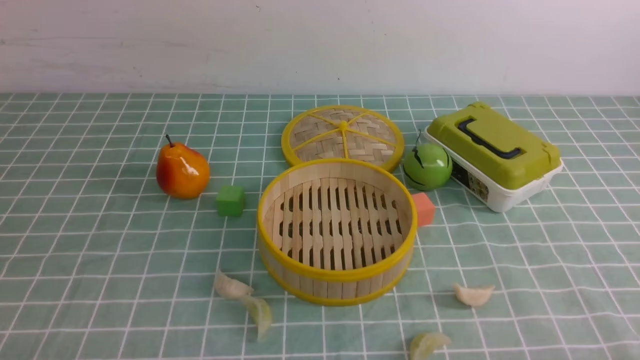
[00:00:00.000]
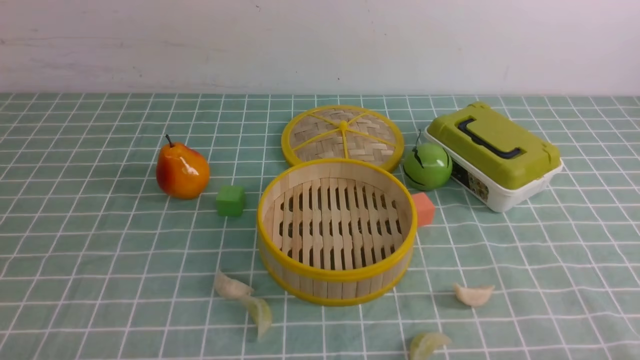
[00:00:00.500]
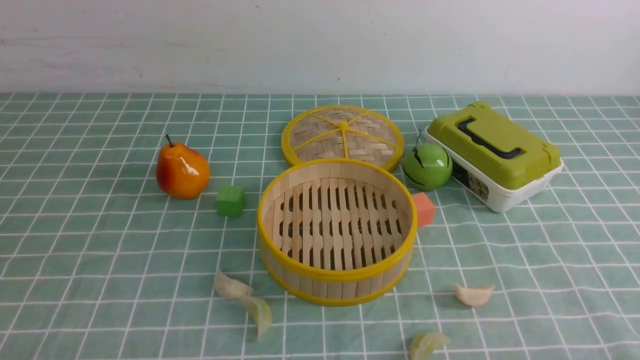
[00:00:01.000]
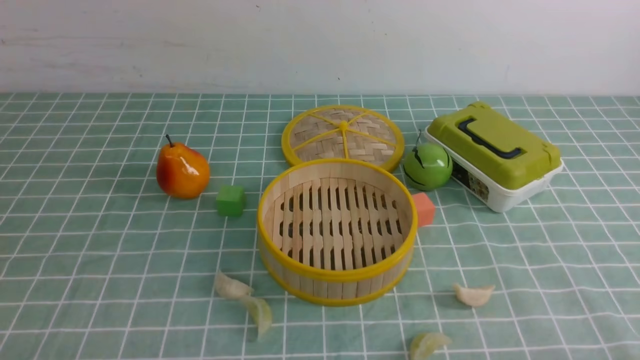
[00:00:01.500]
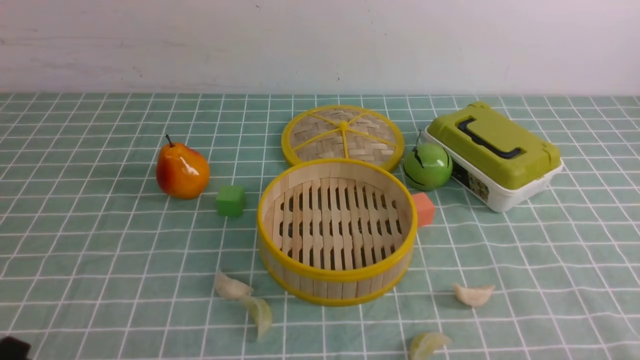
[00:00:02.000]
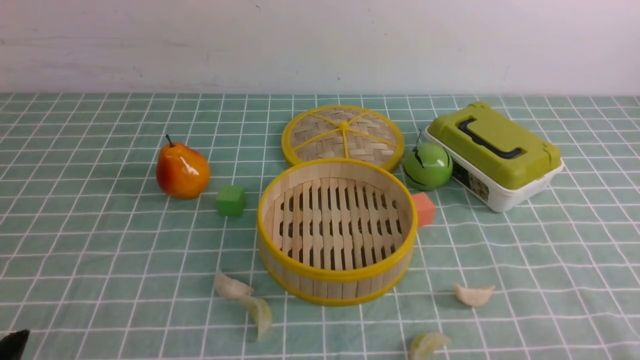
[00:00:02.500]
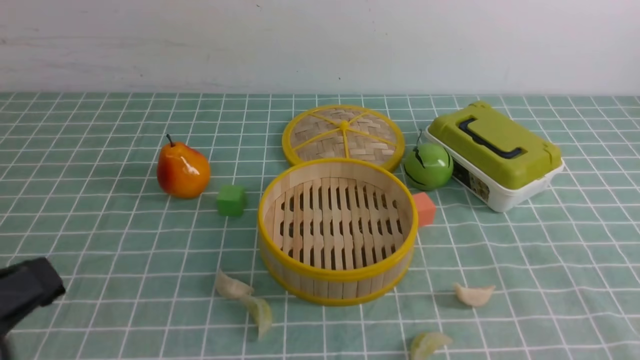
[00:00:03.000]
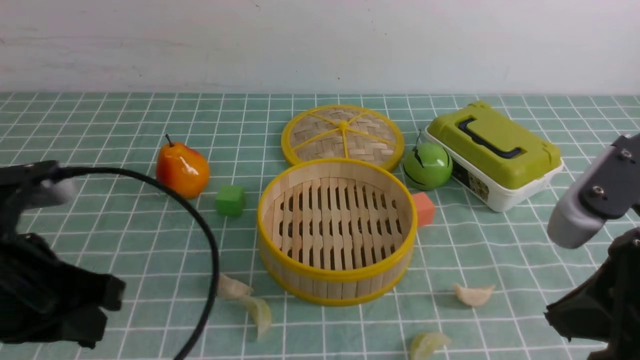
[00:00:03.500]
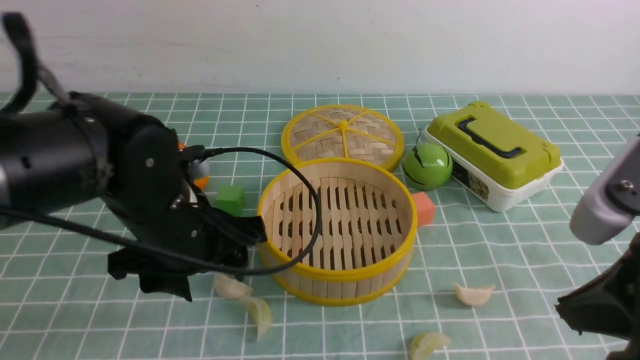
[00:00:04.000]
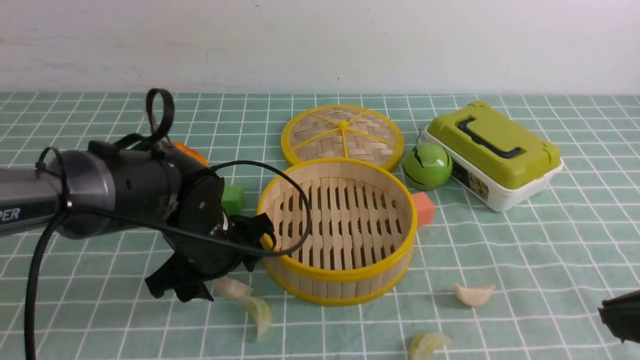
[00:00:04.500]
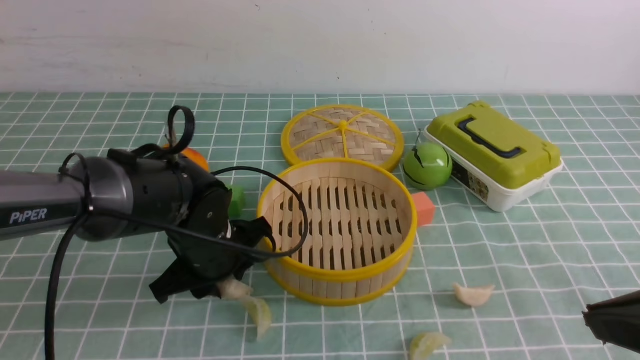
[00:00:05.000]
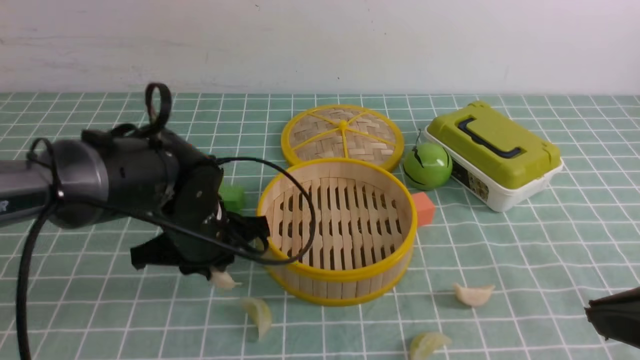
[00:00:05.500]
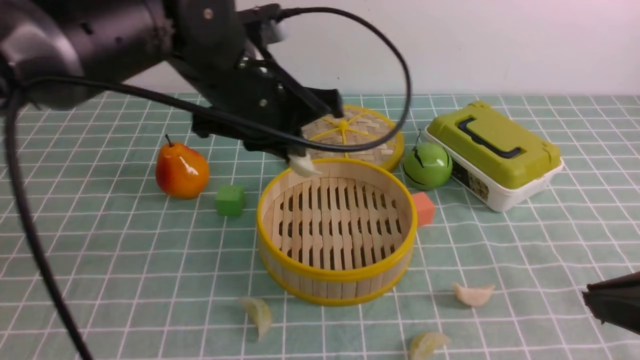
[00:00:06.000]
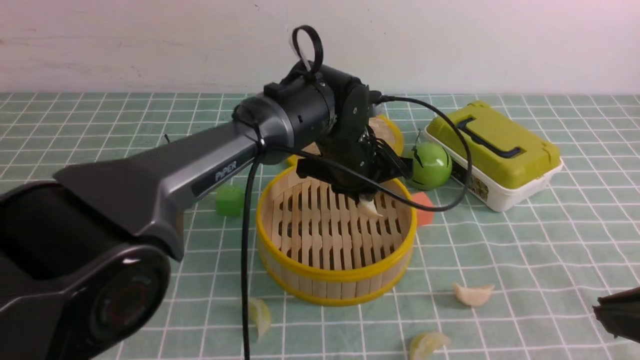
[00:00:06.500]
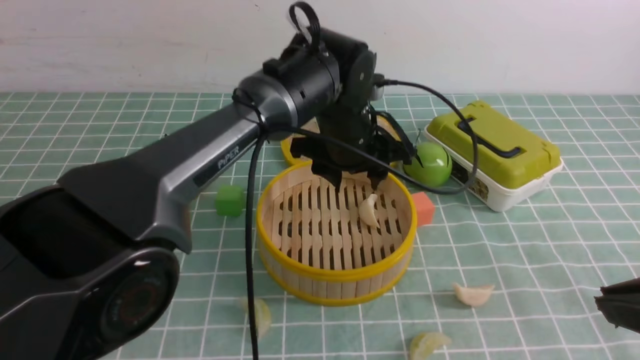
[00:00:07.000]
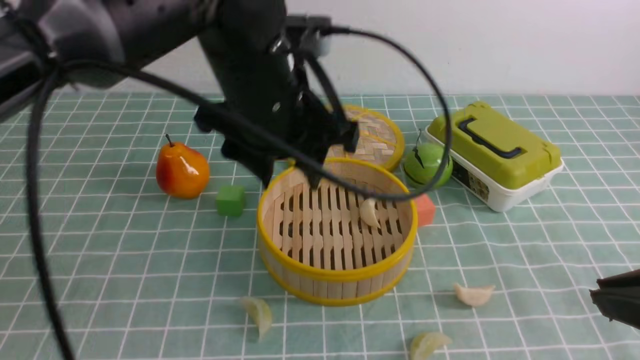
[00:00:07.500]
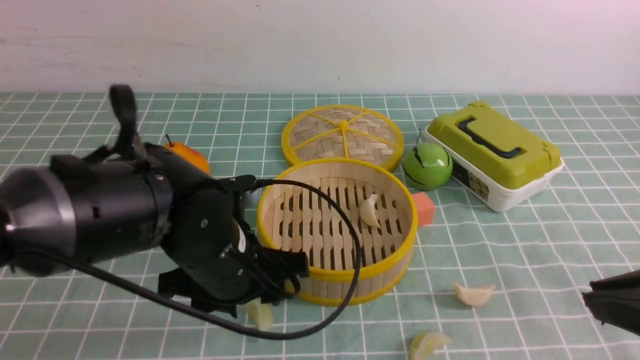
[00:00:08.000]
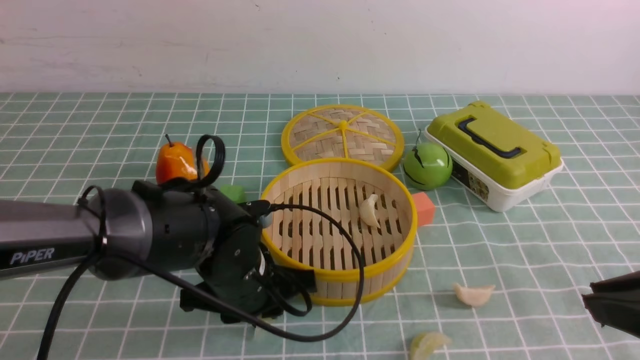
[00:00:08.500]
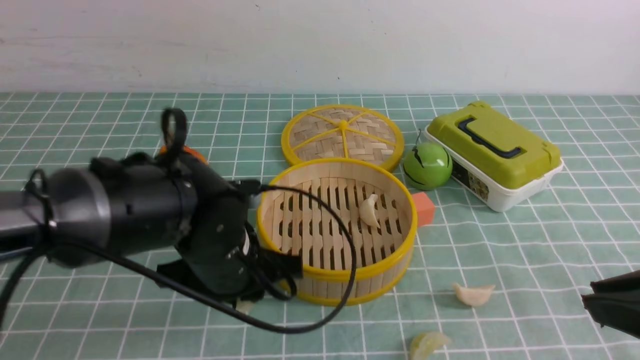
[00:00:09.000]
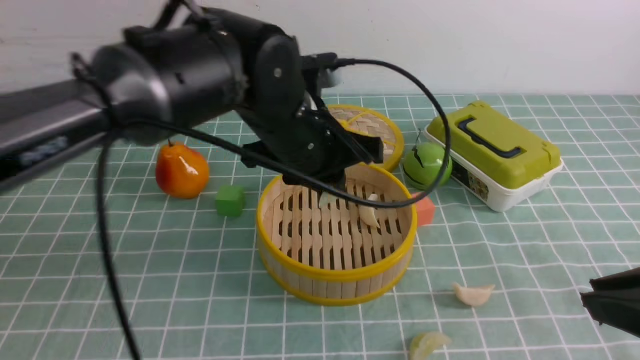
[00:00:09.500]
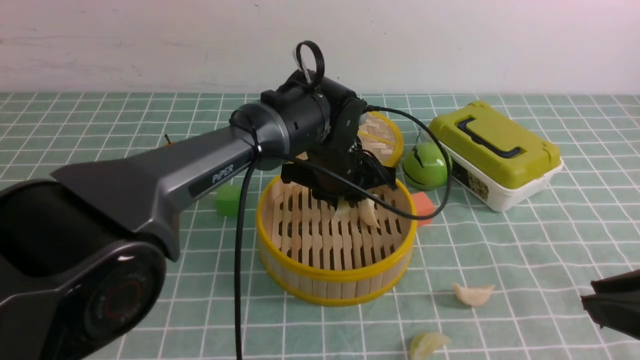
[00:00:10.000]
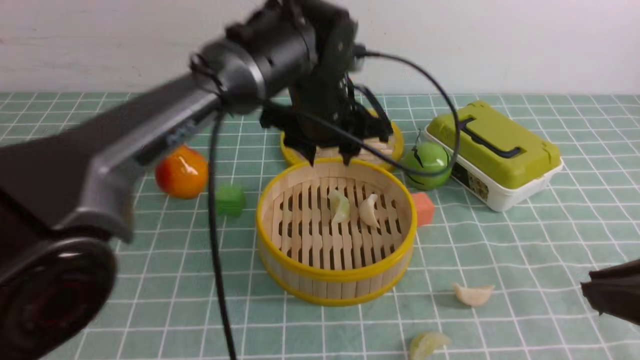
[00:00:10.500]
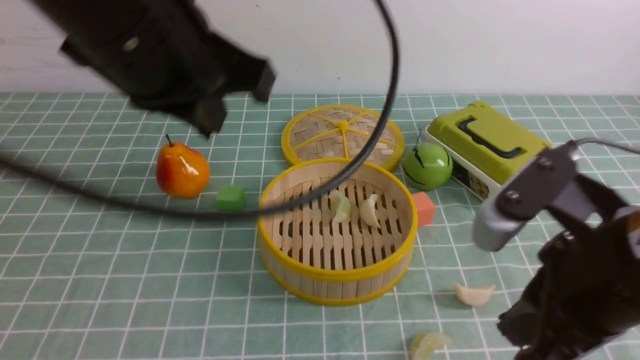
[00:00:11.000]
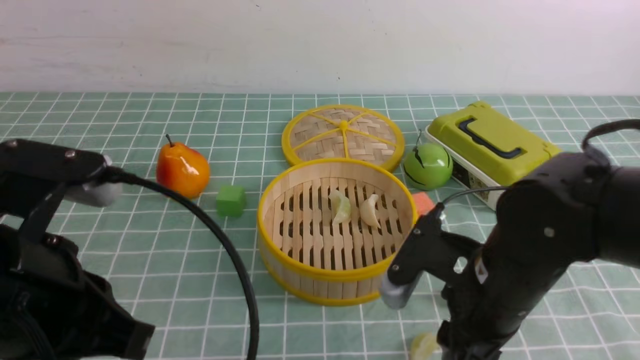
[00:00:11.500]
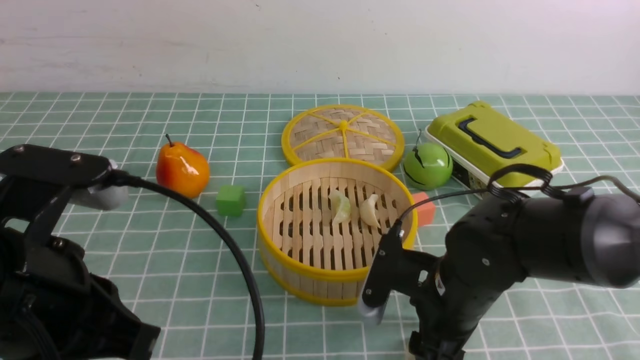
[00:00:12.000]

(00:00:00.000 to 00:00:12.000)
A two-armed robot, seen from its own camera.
Task of the whole recording: put the dumplings into the steamer on the table with the blue tablecloth.
Step, 00:00:00.000 - 00:00:05.500: use the left arm to grab a dumpling.
Step, 00:00:06.000 - 00:00:07.000: use the left arm to put the dumpling into the steamer.
Step, 00:00:07.500 - 00:00:09.000: use the left arm to grab a dumpling.
Step, 00:00:09.500 - 00:00:10.000: use the left arm to put the dumpling into the steamer.
00:00:02.000 - 00:00:04.000: The left gripper shifts about 25 cm forward and to the right, and opens its fingers, while the right gripper goes about 20 cm upward, forward and to the left, and closes up.
00:00:04.000 - 00:00:06.000: The left gripper goes about 15 cm upward, to the right and forward, and closes.
00:00:06.000 - 00:00:08.000: The left gripper travels downward and backward by roughly 15 cm, and opens up.
00:00:08.000 - 00:00:10.000: The left gripper is displaced forward and to the right by some 20 cm, and closes up.
00:00:10.000 - 00:00:12.000: The left gripper shifts about 35 cm backward, to the left and upward, and closes its fingers; the right gripper goes roughly 25 cm downward, forward and to the left, and opens up.

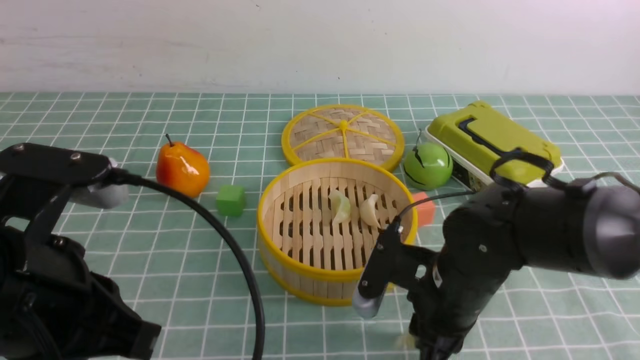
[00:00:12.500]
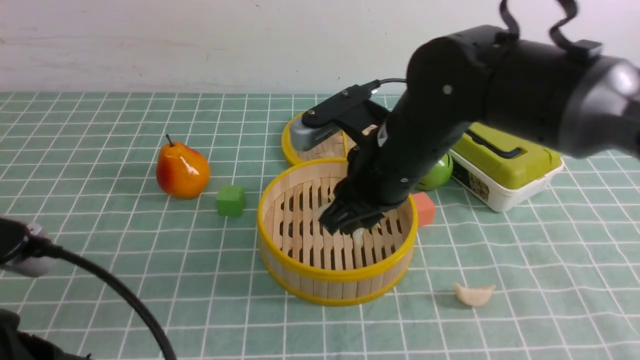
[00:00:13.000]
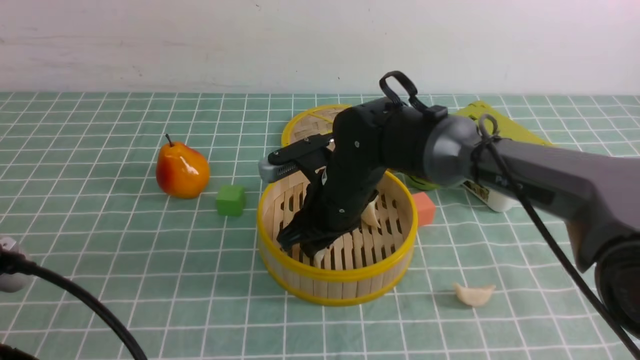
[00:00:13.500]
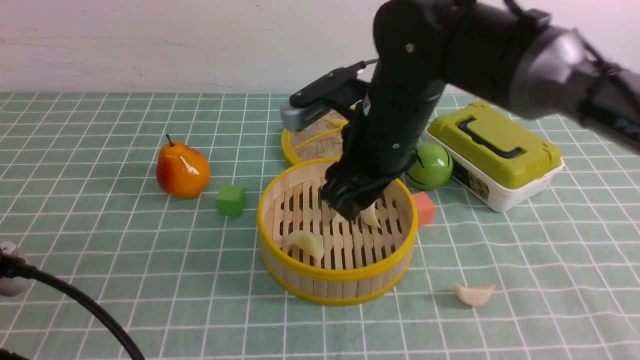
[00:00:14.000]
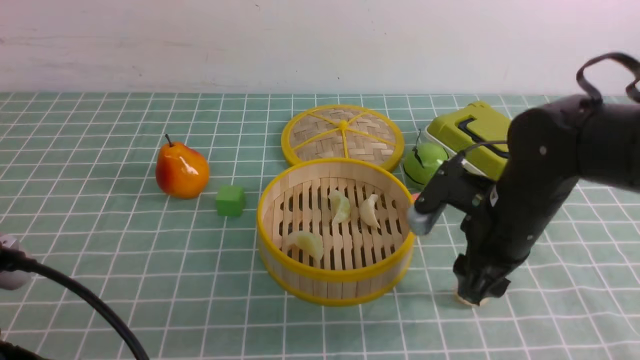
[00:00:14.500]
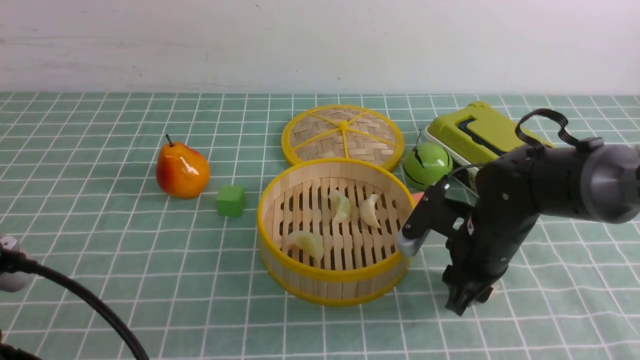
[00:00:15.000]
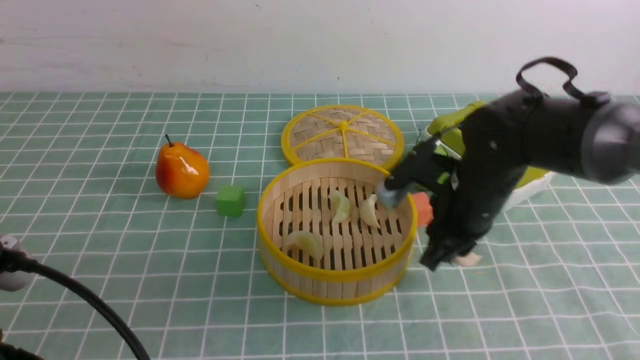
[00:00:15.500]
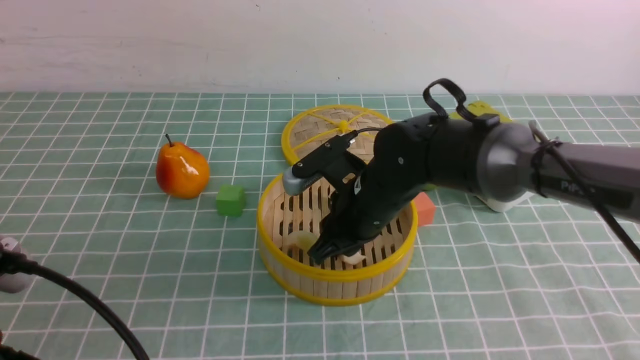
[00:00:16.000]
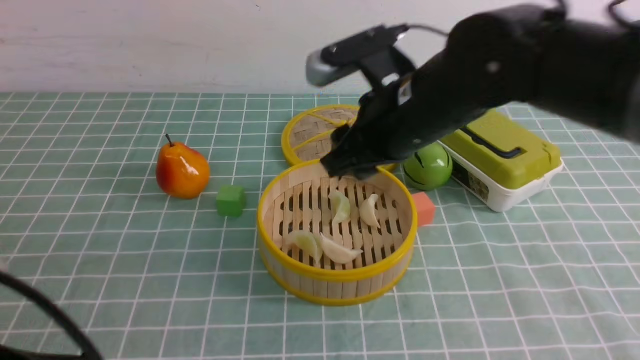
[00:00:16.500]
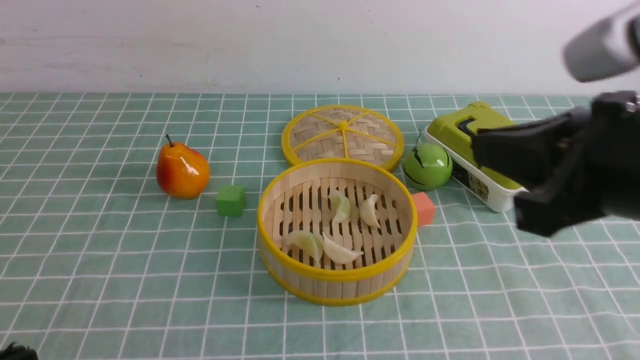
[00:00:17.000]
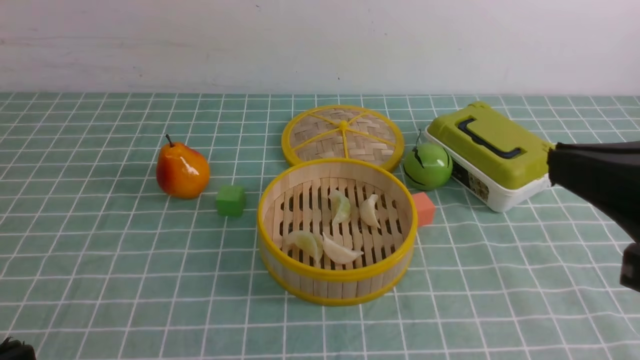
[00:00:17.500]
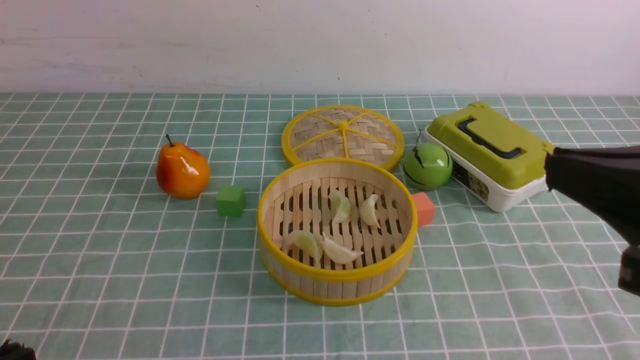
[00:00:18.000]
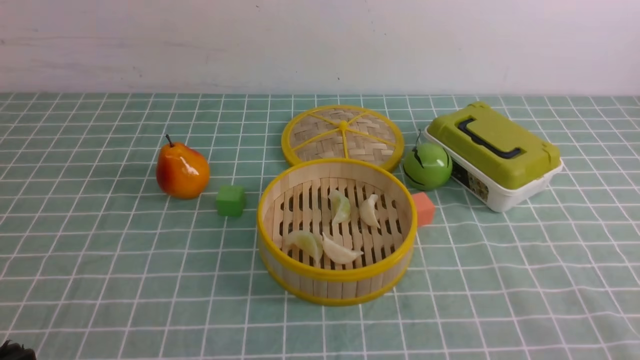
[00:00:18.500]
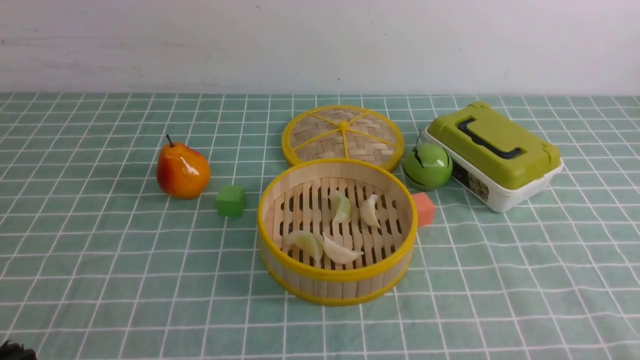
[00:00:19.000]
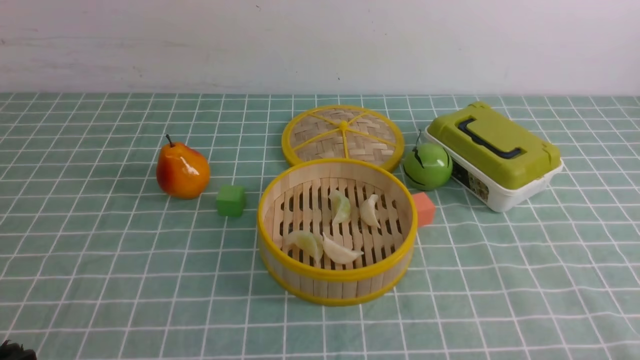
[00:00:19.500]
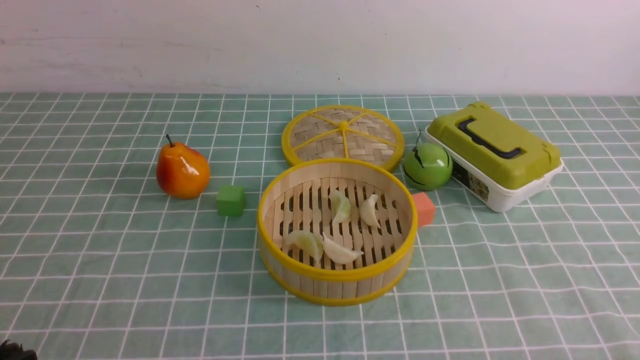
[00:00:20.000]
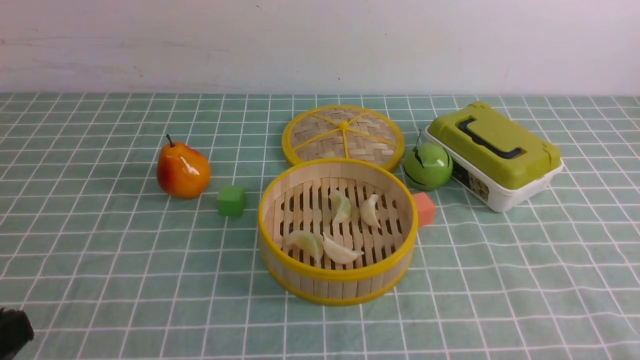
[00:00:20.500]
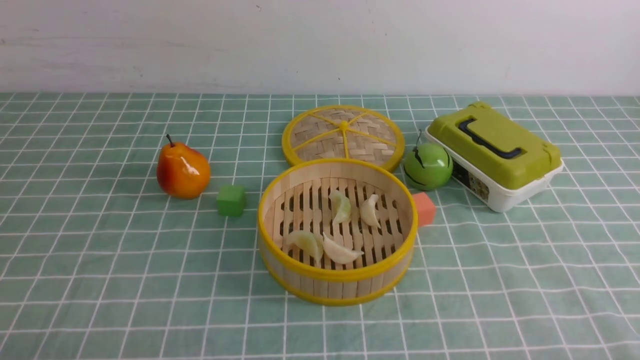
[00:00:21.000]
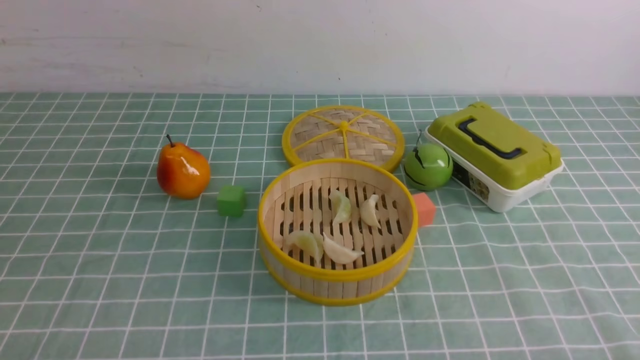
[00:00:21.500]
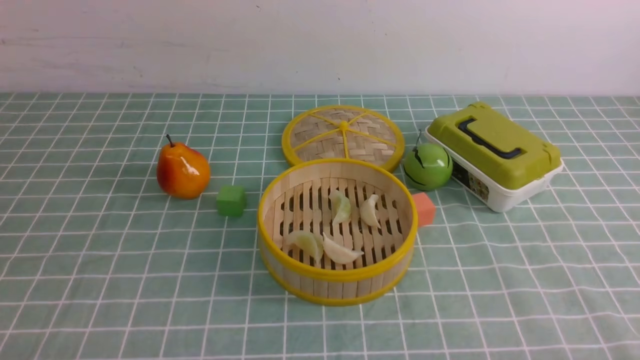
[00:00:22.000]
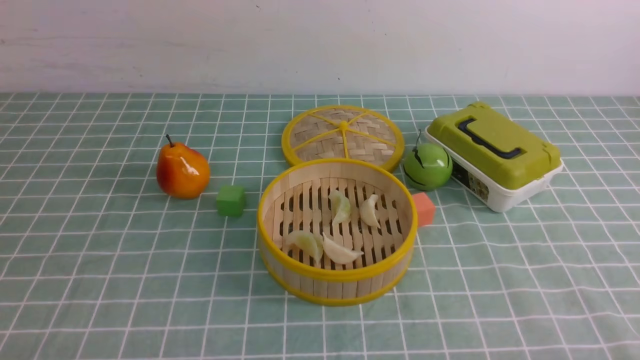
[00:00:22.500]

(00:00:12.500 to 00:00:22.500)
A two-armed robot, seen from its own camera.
Task of the whole recording: put the dumplings into the steamer on the table with the blue tablecloth.
Step, 00:00:13.000 - 00:00:14.000: use the right arm to put the dumpling into the steamer.
Step, 00:00:14.500 - 00:00:15.500: use the right arm to grab a dumpling.
Step, 00:00:16.000 - 00:00:16.500: use the right arm to put the dumpling into the steamer.
00:00:12.500 - 00:00:14.500: The left gripper shifts by roughly 5 cm. The right gripper moves to the right and forward, some 10 cm, and opens its fingers.
00:00:14.500 - 00:00:16.500: The right gripper is displaced upward and to the left by some 15 cm.
00:00:16.500 - 00:00:18.500: The left gripper ends up about 5 cm from where it was. Meanwhile the right gripper shifts about 30 cm backward and to the right, and closes its fingers.
